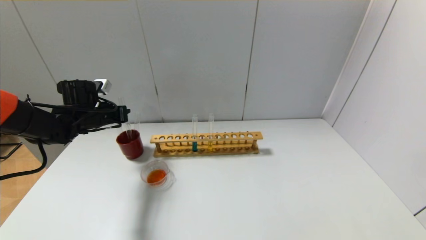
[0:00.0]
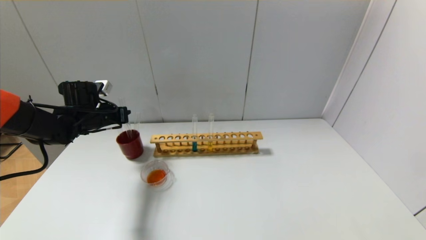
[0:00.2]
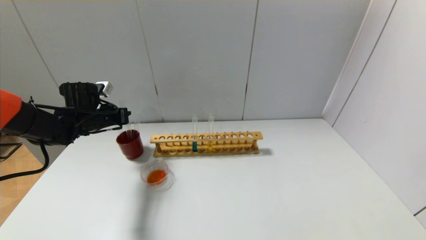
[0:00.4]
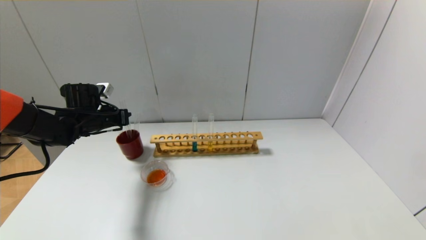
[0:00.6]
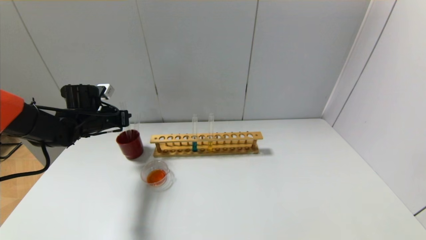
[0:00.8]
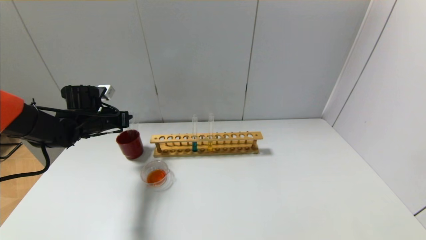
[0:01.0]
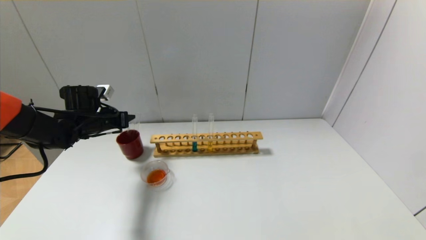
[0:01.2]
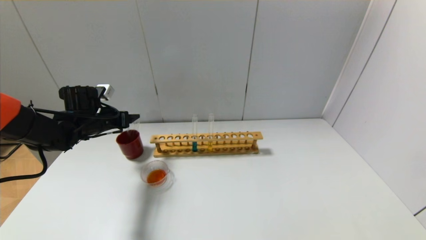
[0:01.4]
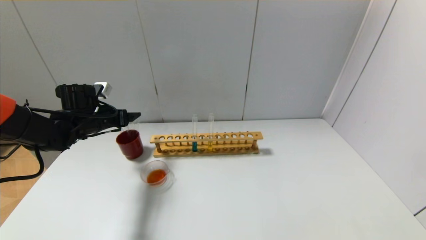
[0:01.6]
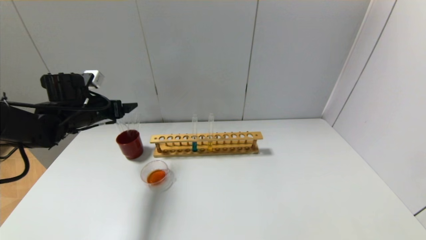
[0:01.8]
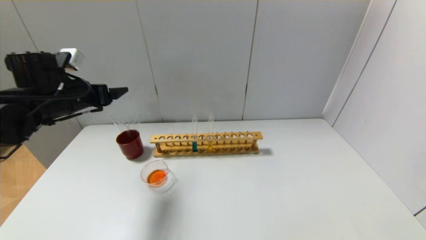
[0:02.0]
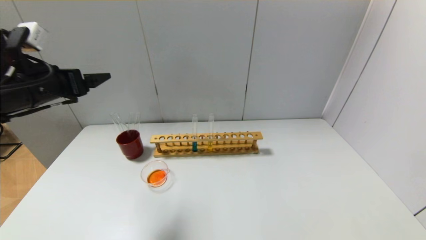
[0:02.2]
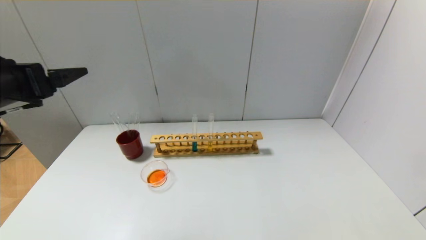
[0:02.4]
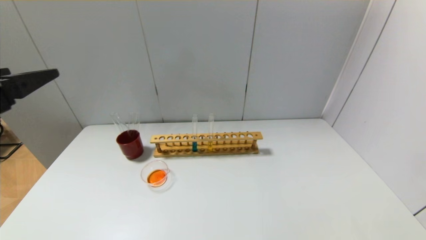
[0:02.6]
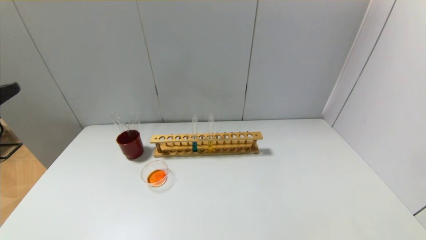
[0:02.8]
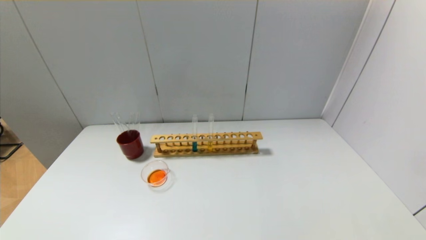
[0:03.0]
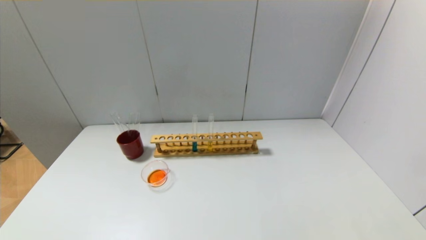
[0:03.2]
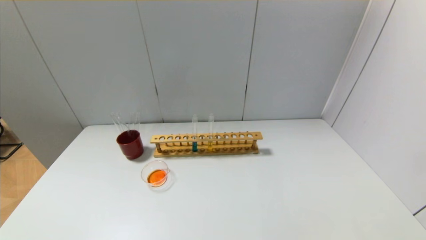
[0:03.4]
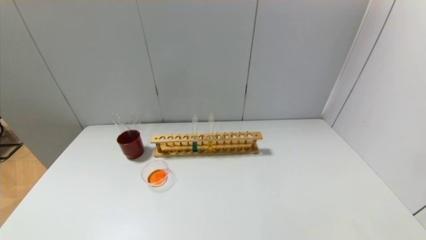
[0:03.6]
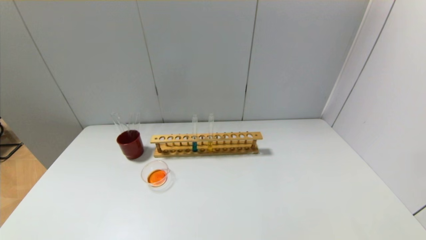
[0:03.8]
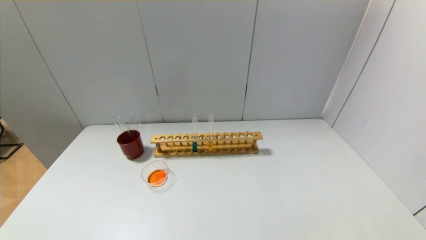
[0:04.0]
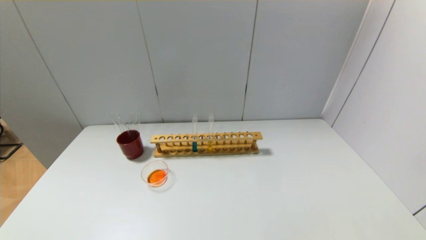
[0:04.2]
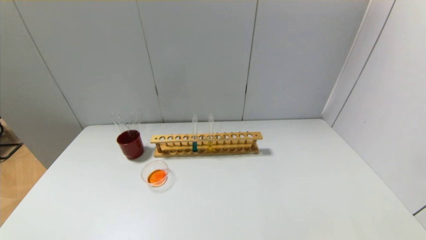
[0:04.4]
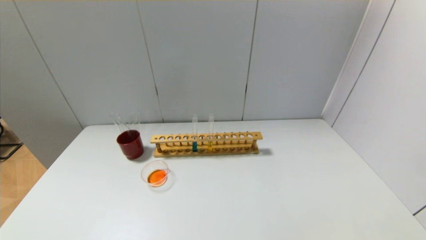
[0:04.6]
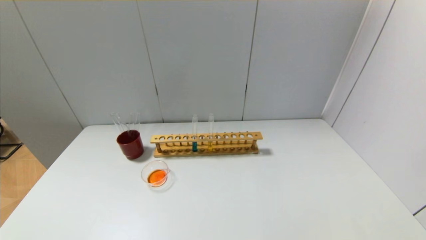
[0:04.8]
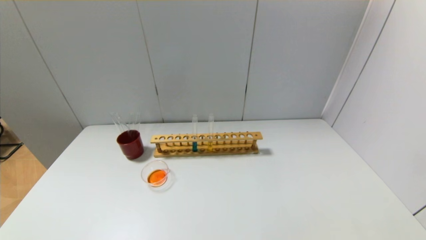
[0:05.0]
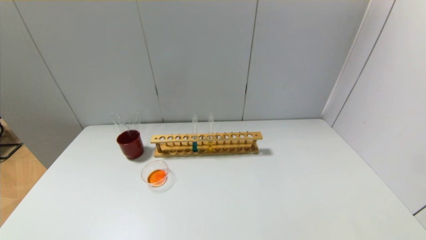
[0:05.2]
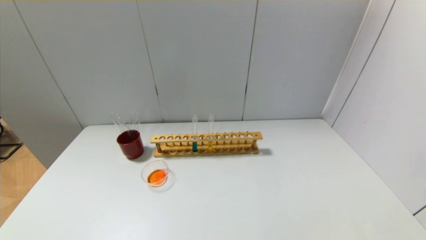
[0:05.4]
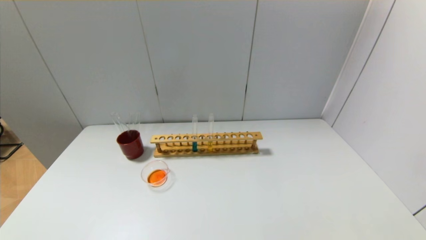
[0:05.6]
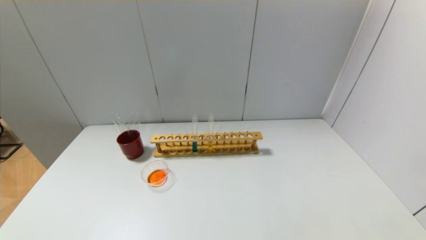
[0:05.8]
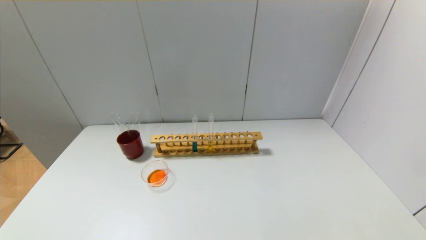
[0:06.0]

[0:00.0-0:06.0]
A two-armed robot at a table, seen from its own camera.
0:00.0 to 0:01.6: The left gripper opens.
0:01.6 to 0:03.0: The left gripper moves backward, approximately 35 cm.

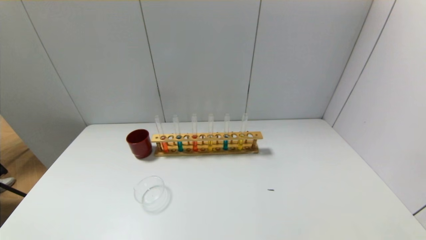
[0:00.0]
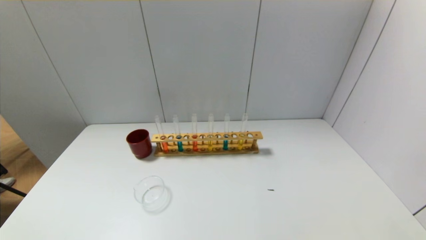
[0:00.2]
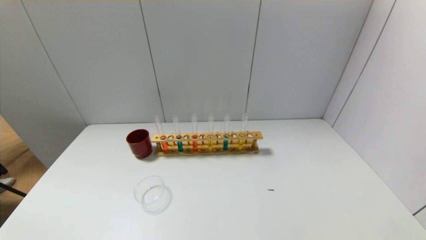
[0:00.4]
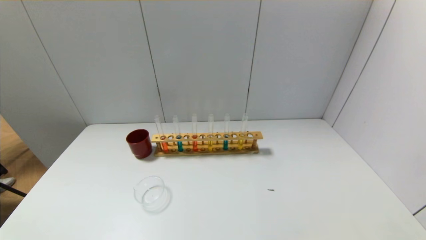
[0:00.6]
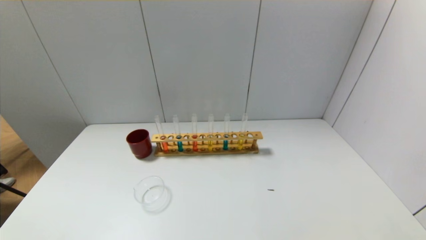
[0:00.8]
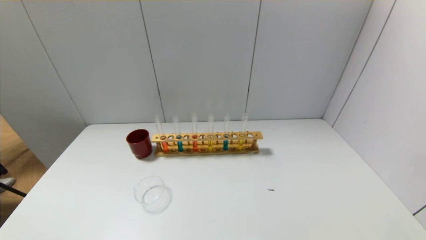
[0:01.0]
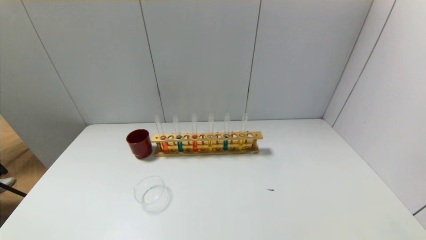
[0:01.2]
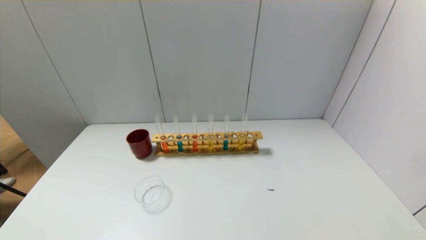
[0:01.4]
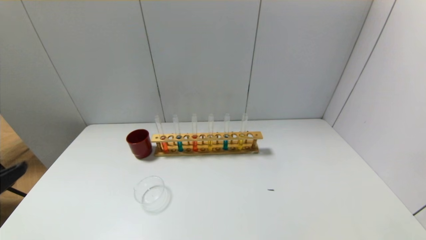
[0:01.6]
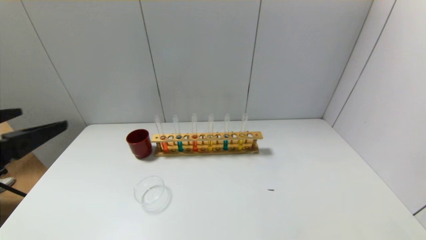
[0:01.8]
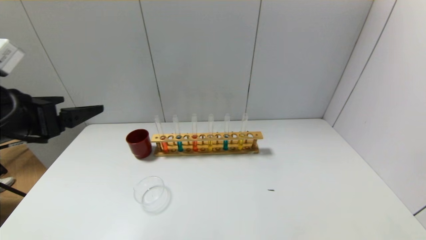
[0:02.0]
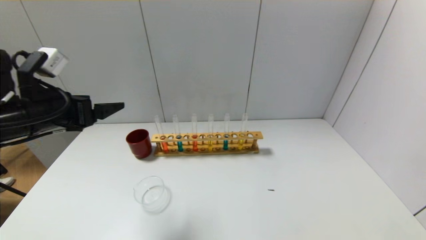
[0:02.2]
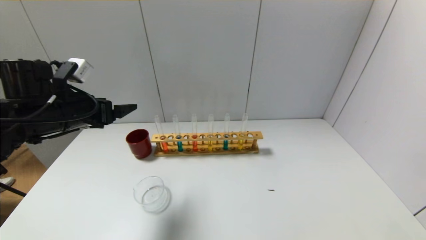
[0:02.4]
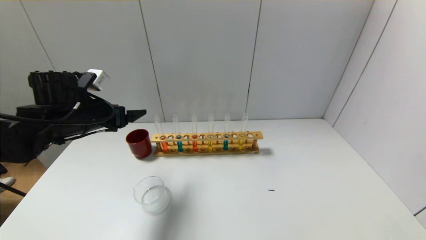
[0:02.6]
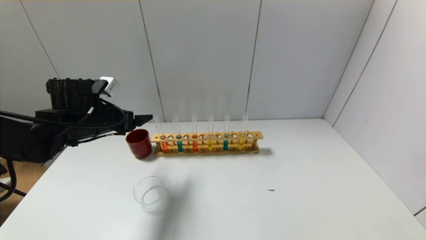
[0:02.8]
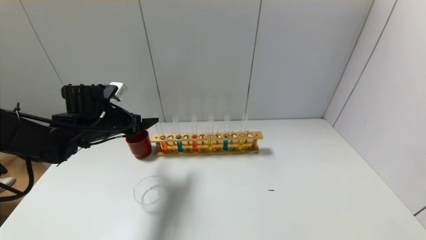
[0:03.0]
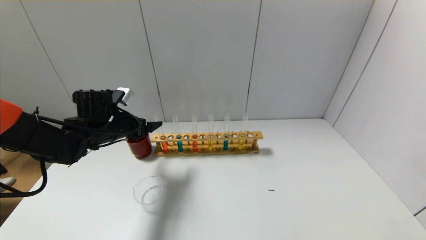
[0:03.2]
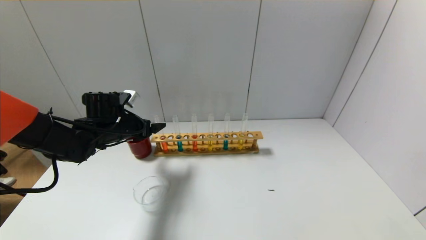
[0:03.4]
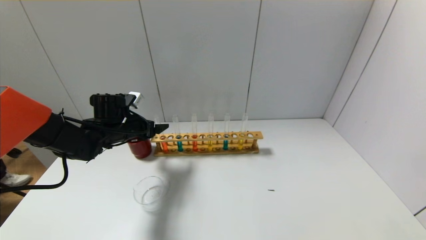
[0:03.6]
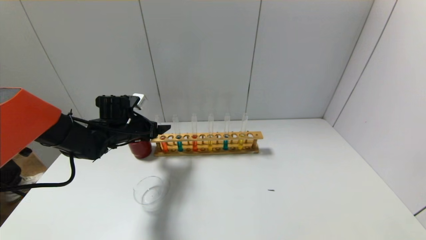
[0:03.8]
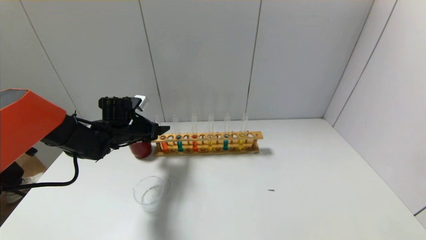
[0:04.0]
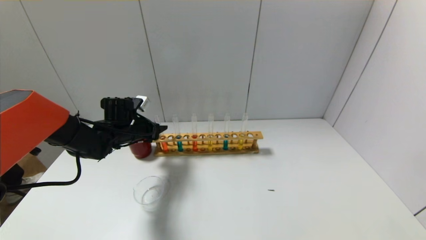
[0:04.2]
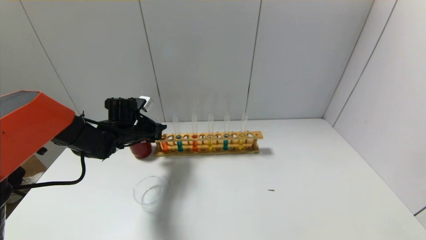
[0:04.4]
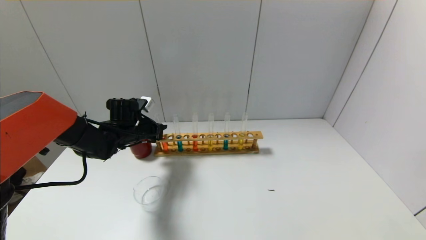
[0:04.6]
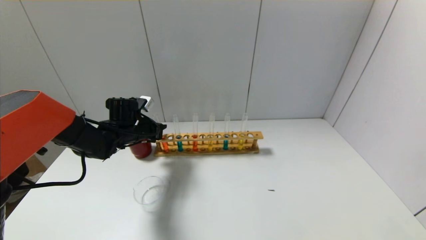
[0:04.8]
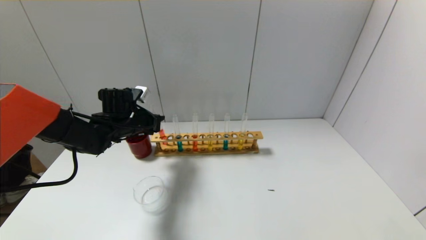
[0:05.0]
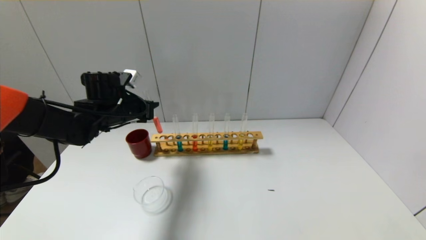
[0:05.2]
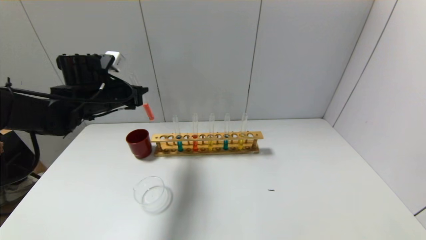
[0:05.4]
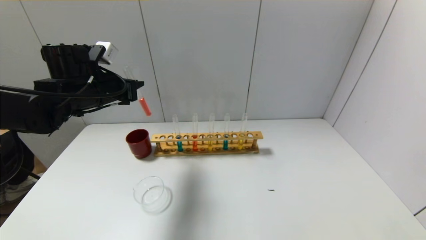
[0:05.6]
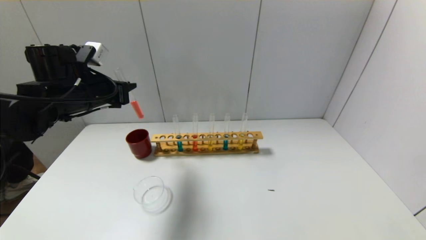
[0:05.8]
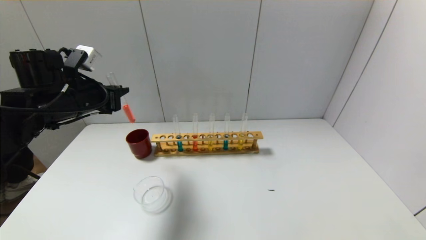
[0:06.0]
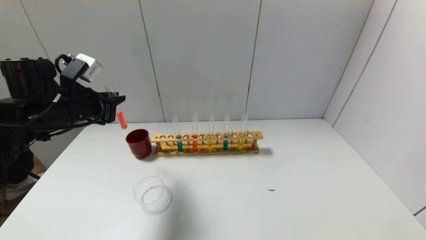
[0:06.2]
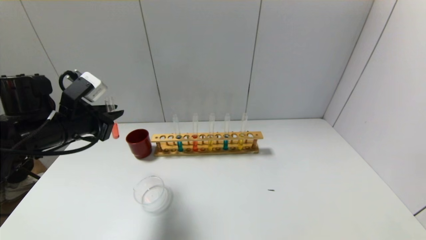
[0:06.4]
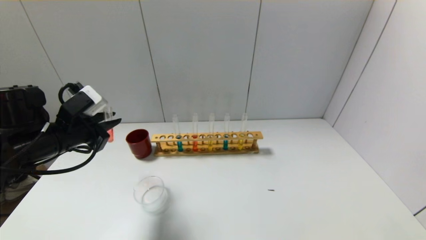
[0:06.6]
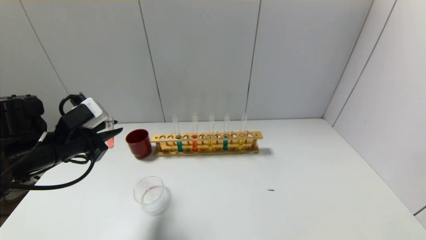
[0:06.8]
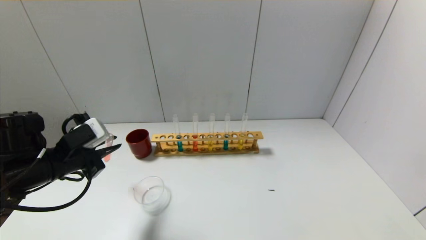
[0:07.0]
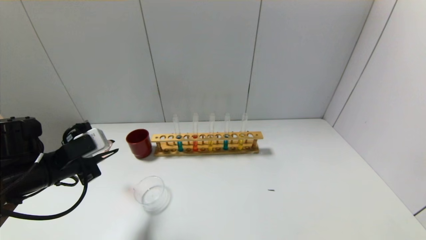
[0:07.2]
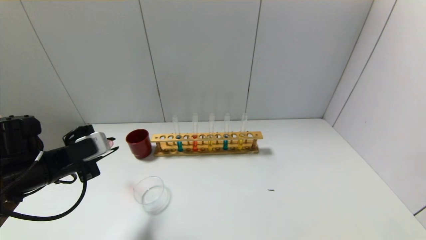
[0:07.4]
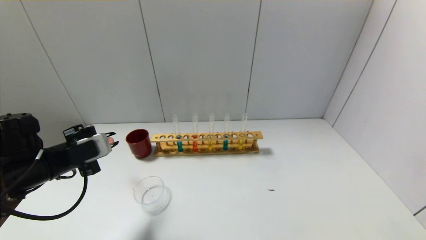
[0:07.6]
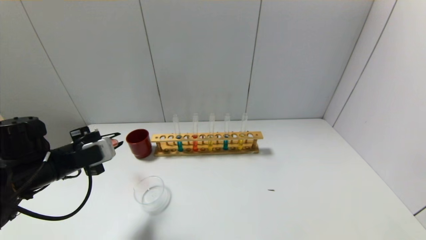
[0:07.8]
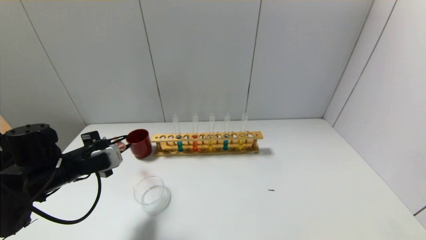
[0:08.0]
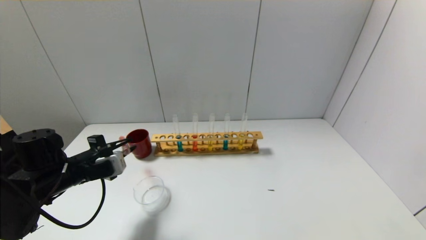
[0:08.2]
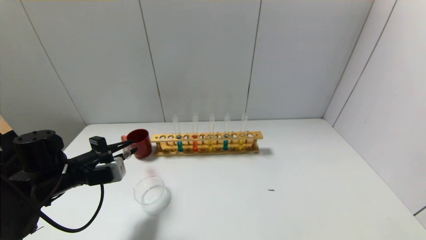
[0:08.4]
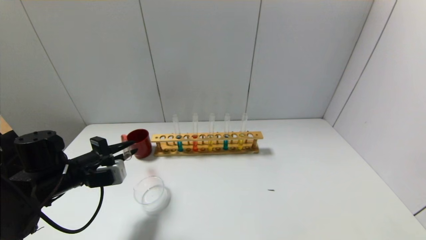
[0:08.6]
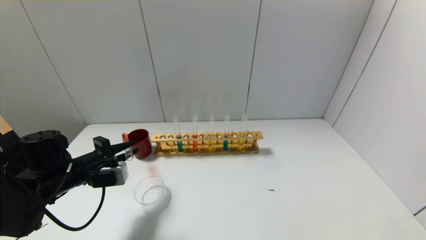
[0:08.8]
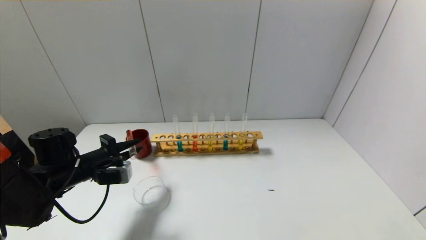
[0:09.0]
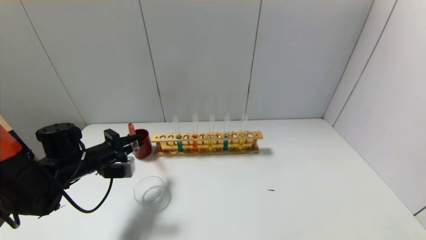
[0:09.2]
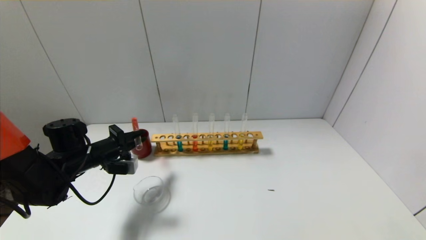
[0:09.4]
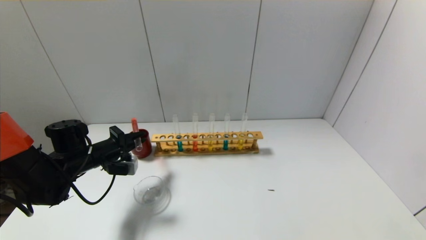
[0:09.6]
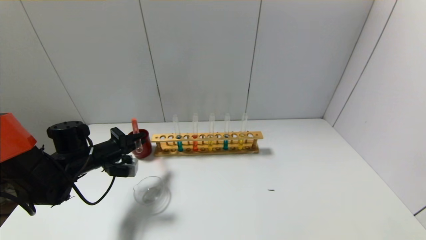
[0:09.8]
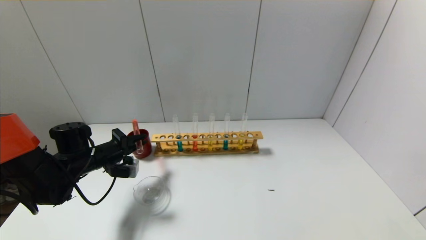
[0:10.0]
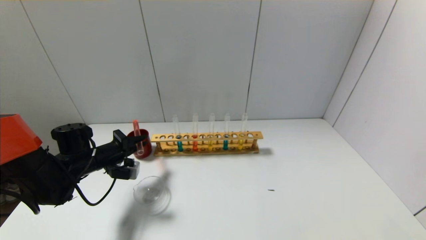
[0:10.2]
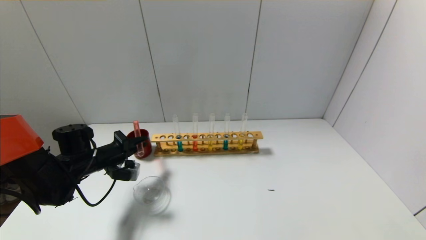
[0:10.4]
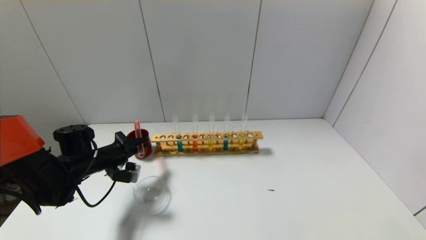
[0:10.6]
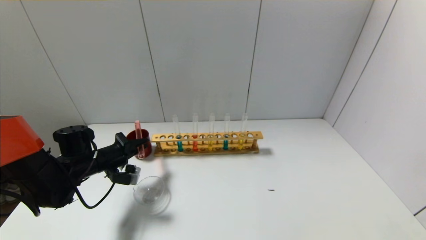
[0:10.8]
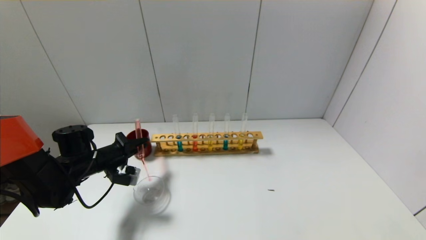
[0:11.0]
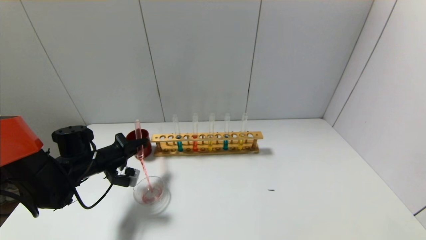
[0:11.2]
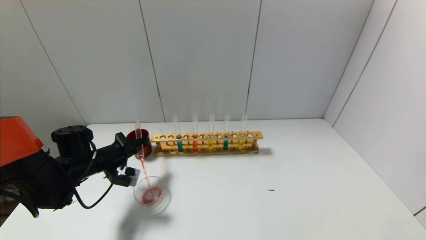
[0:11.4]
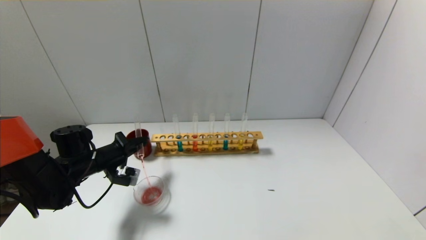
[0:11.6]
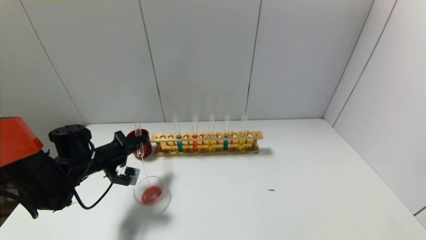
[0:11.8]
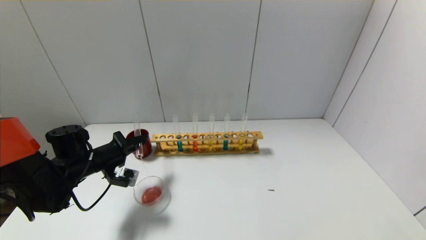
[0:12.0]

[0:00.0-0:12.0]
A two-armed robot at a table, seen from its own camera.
Step, 0:00.0 to 0:04.4: Grasp the red reagent with the left gripper.
0:01.6 to 0:03.0: The left gripper moves forward, some 30 cm.
0:03.0 to 0:04.4: The left gripper is displaced forward and downward by approximately 10 cm, and closes.
0:04.4 to 0:06.0: The left gripper goes some 15 cm upward and backward.
0:06.0 to 0:07.6: The left gripper moves downward and backward, about 10 cm.
0:07.6 to 0:09.0: The left gripper is displaced downward by about 5 cm.
0:09.0 to 0:10.4: The left gripper moves some 5 cm.
0:10.4 to 0:12.0: The grippers make only small movements.
